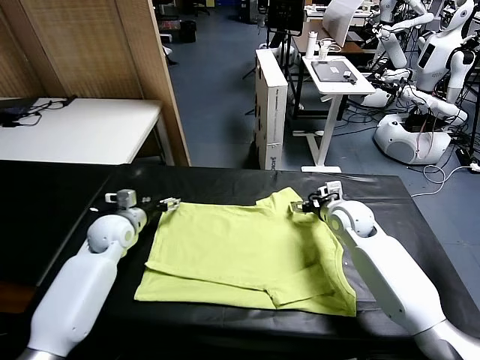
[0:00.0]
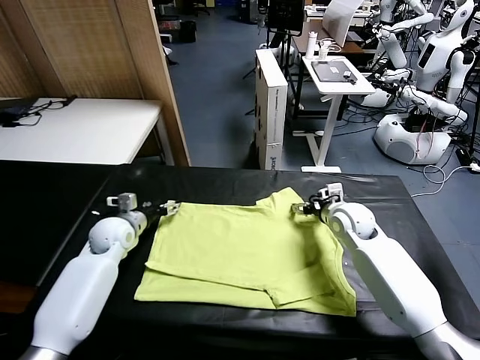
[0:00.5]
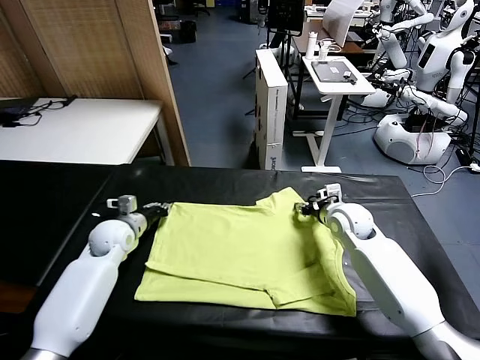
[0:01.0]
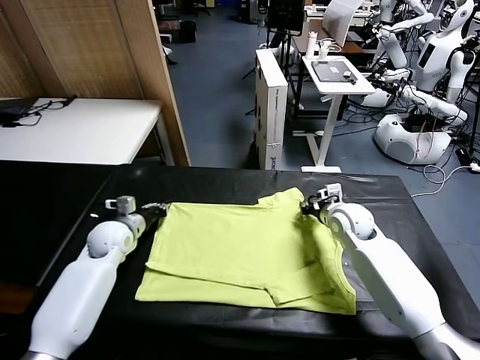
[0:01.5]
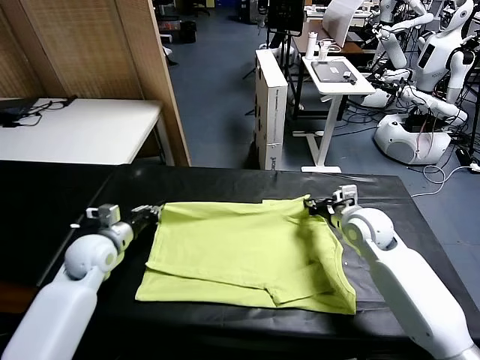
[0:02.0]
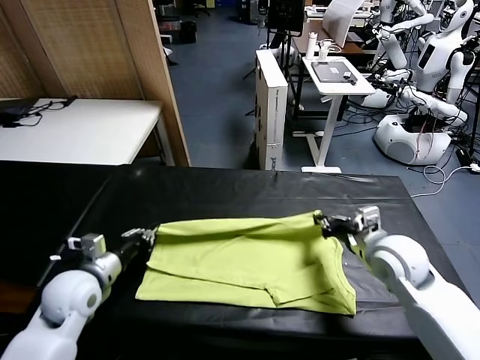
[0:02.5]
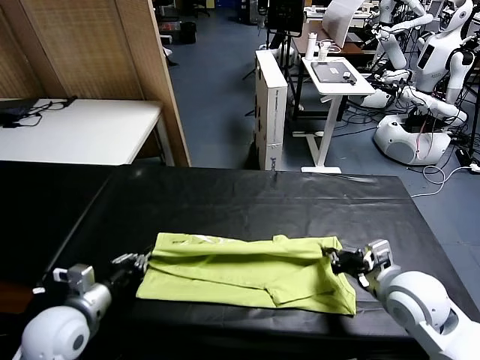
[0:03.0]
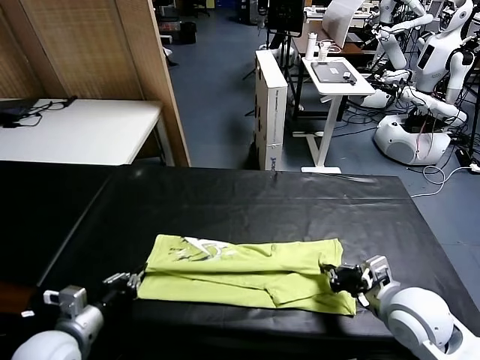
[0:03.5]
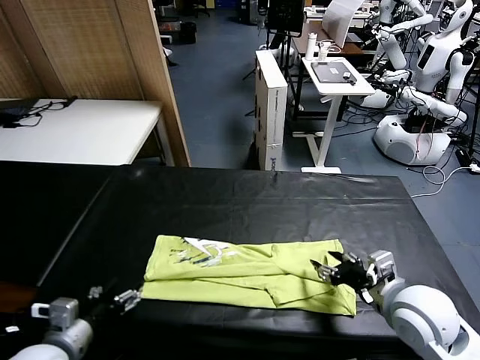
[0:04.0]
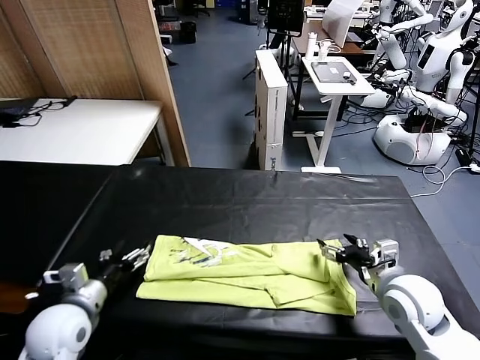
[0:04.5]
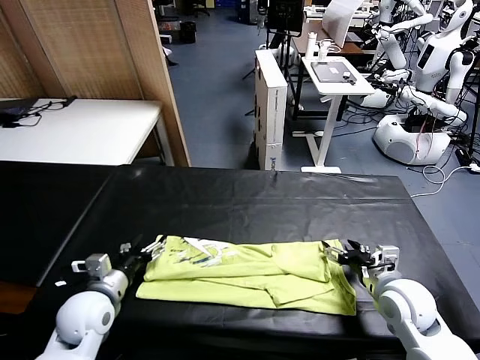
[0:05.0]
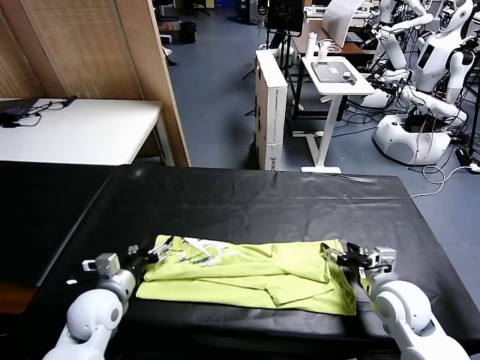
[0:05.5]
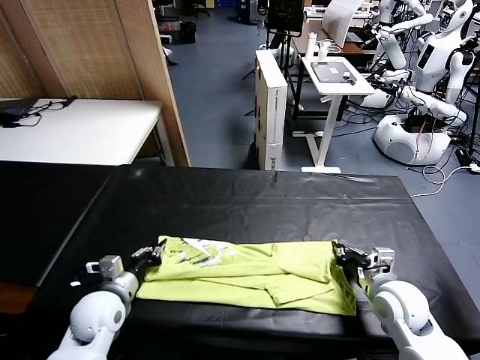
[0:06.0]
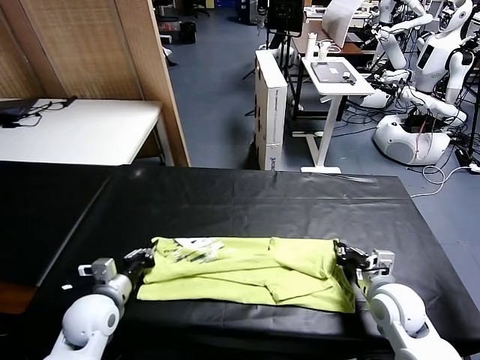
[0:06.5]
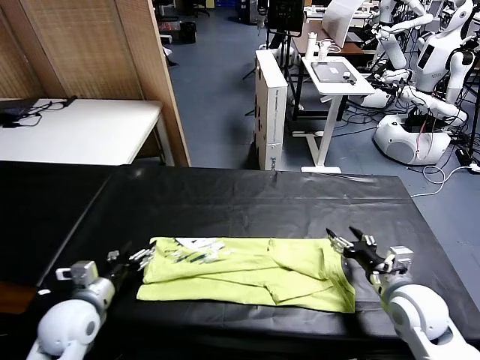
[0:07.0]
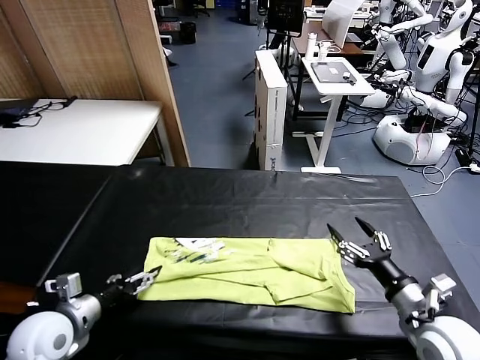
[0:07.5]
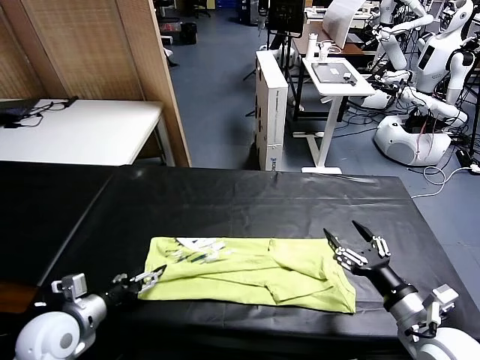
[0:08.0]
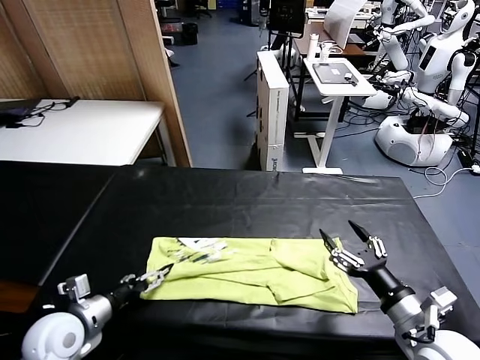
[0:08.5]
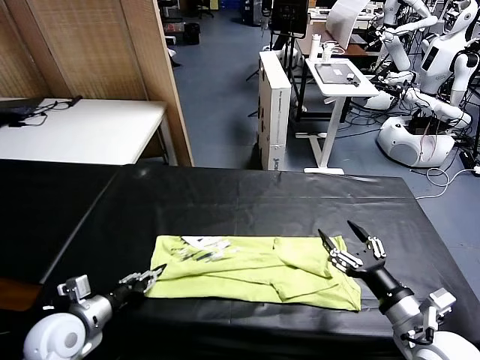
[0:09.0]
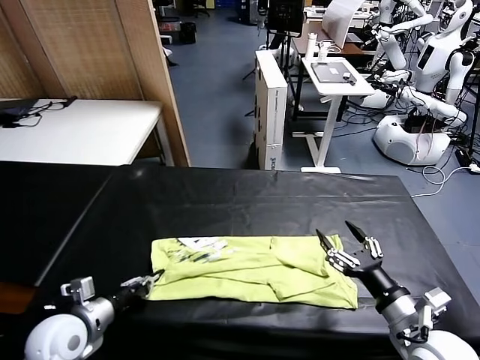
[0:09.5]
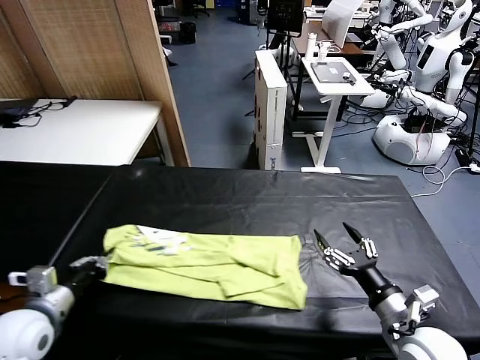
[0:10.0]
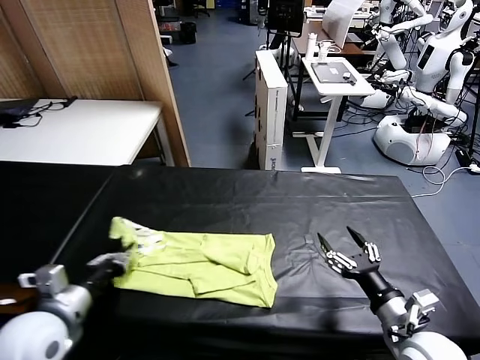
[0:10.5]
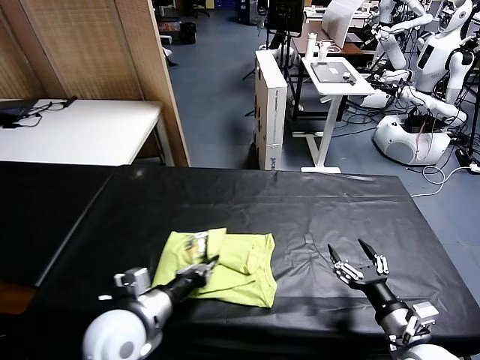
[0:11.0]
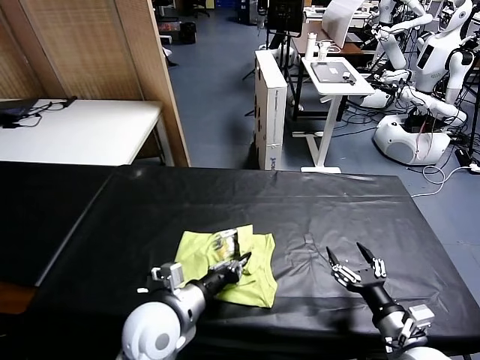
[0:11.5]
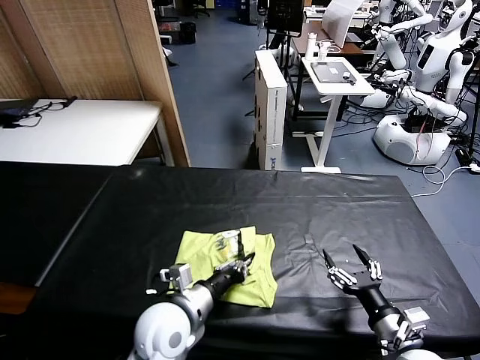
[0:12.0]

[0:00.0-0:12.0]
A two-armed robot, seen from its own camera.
Task of the whole recording: fold and organize the clothes.
Step, 0:01.5 to 0:04.0: use both grippers to drag the upper edge of the fabric backward and fold it over the lower edge.
Step, 0:04.5 to 0:09.0: use the left gripper to clamp the left edge of the fabric.
0:00.0 to 0:02.0: The grippers both shift backward by approximately 10 cm. The left gripper closes, while the right gripper closes up.
0:02.0 to 0:04.0: The grippers both shift backward by some 20 cm. The right gripper opens its fingers; the left gripper opens up.
0:04.0 to 0:06.0: The right gripper is displaced downward by some 10 cm, and closes. Meanwhile the left gripper shifts some 15 cm forward and downward, and closes.
0:06.0 to 0:08.0: The right gripper travels backward and upward by some 10 cm, and opens its fingers. The left gripper goes about 10 cm backward and to the left, and opens up.
0:08.0 to 0:10.0: The left gripper shifts some 5 cm upward, and closes up.
0:10.0 to 0:12.0: The left gripper heads to the right, covering roughly 25 cm.

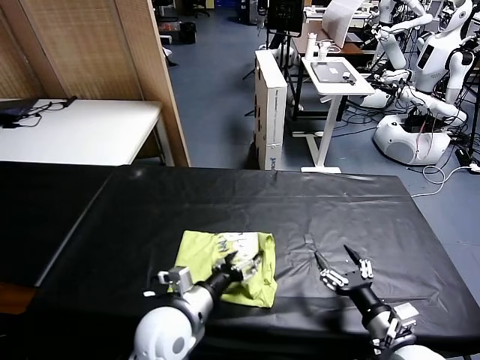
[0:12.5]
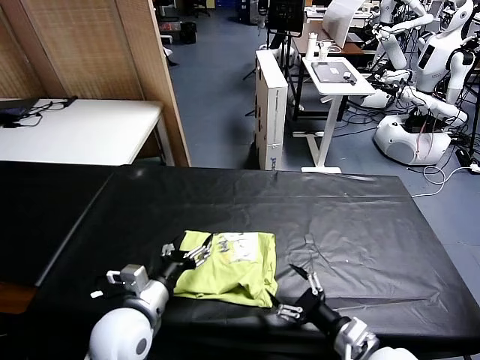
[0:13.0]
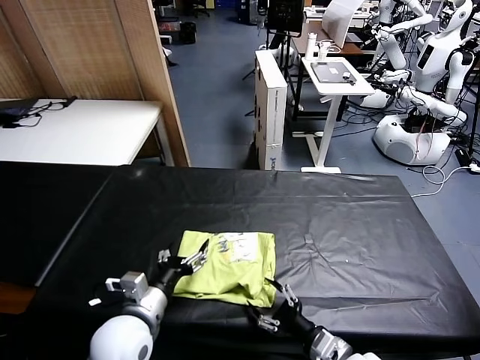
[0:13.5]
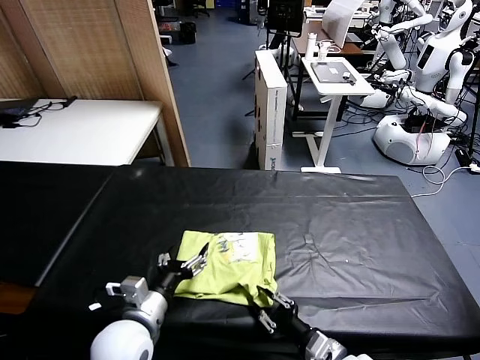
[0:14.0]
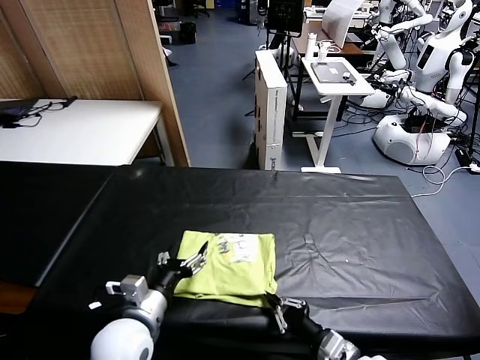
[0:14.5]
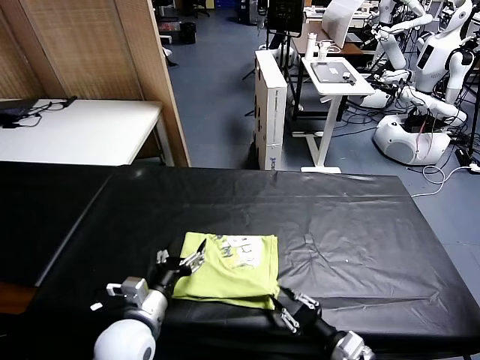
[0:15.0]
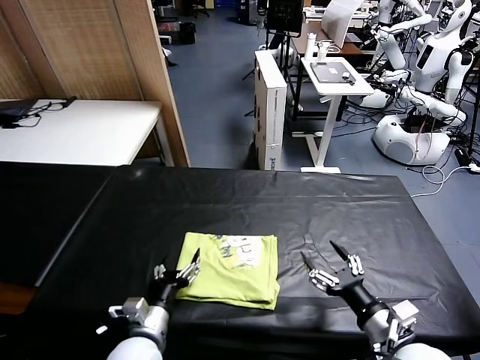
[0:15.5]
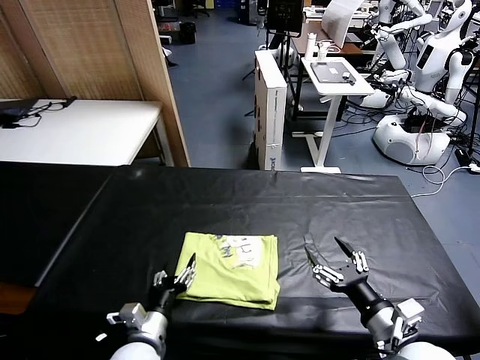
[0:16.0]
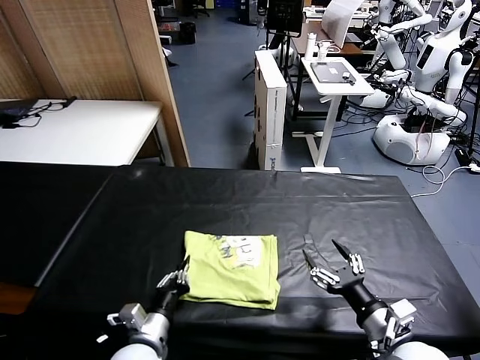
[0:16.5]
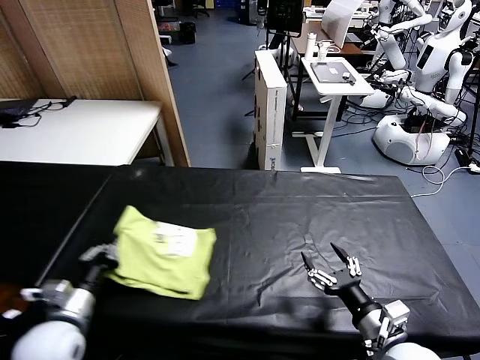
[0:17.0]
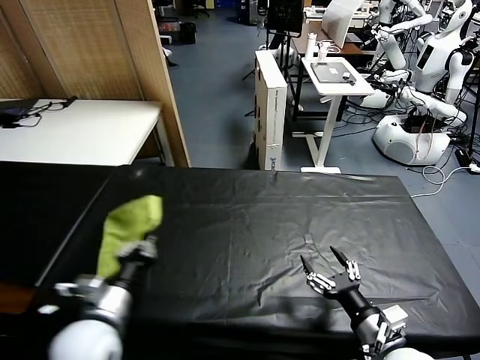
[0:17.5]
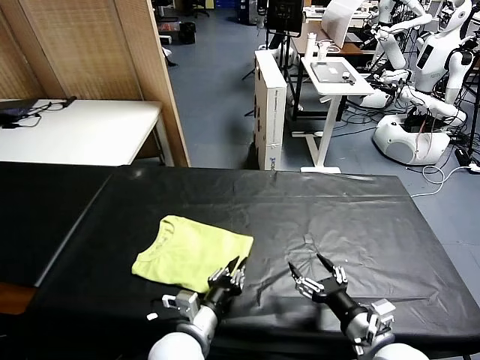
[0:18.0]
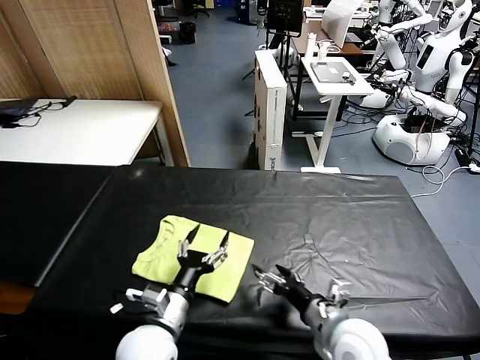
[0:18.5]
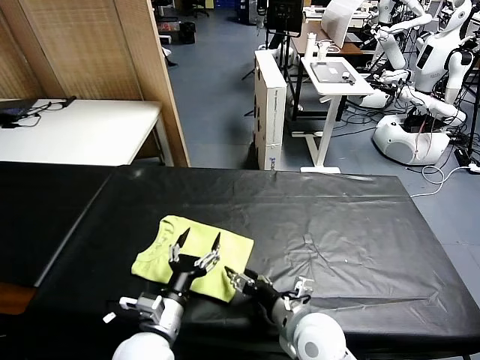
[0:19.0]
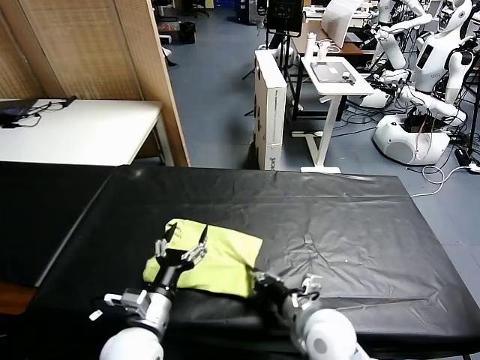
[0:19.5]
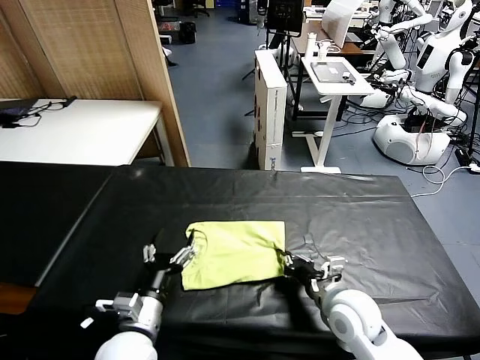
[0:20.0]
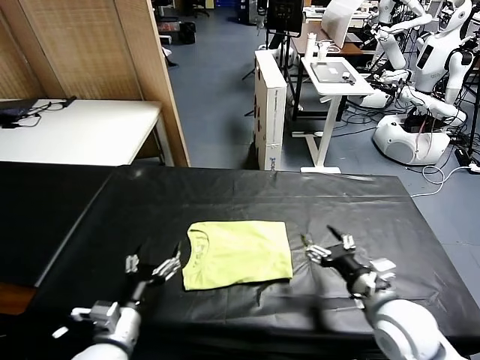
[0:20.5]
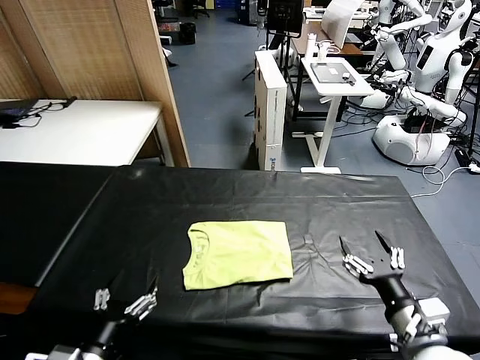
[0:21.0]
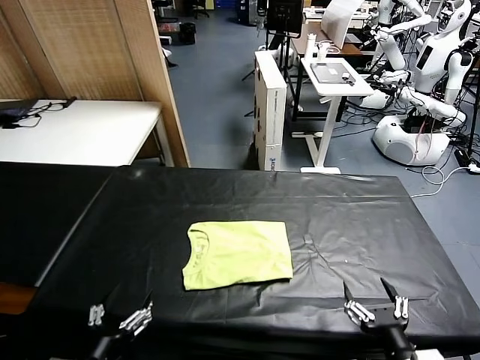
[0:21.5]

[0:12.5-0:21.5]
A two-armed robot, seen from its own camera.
Task of the whole recording: fold and organize the clothes.
Step, 0:12.5 to 0:18.0: Flip the folded clothes over with left gripper.
Step, 0:18.5 to 0:20.0: Drag the clothes to the center of the table.
0:12.5 to 0:14.5: Both grippers move to the left, about 5 cm. The right gripper closes.
0:14.5 to 0:17.0: The left gripper is displaced to the left by roughly 15 cm, and closes; the right gripper moves approximately 5 cm, and opens.
0:17.0 to 0:19.5: The right gripper is displaced to the left and forward by about 15 cm, and closes up, while the left gripper travels to the right by roughly 15 cm, and opens.
0:19.5 to 0:21.5: The left gripper goes about 15 cm backward and to the left, while the right gripper heads backward and to the right, covering roughly 20 cm, and opens up.

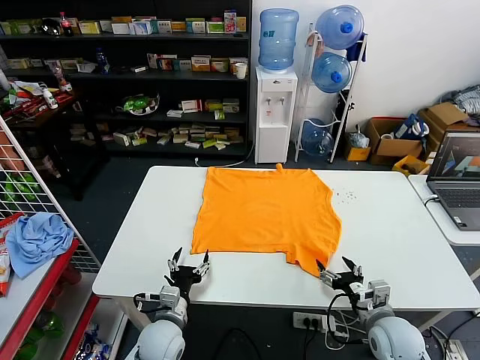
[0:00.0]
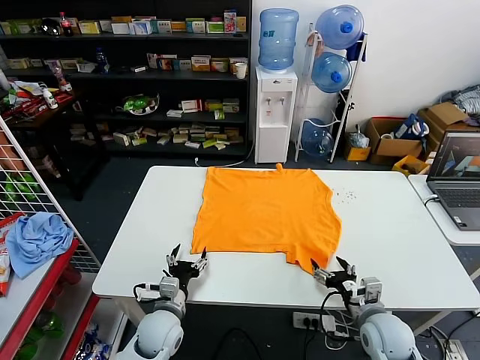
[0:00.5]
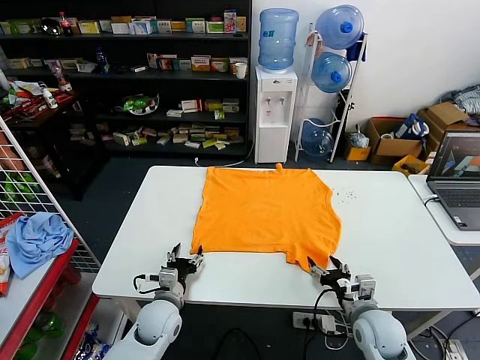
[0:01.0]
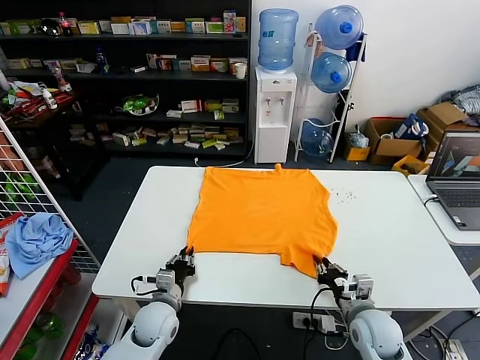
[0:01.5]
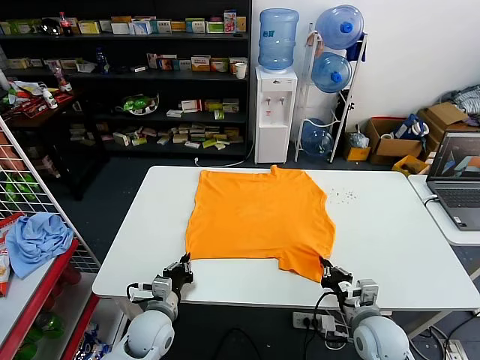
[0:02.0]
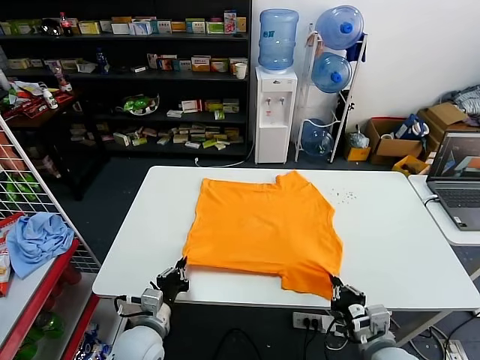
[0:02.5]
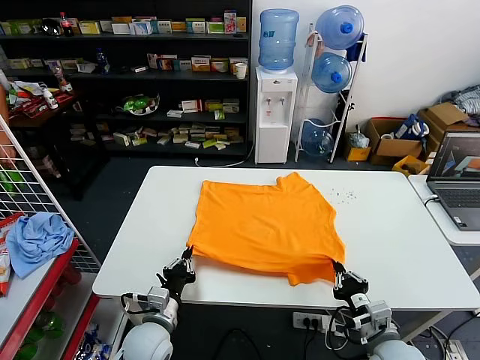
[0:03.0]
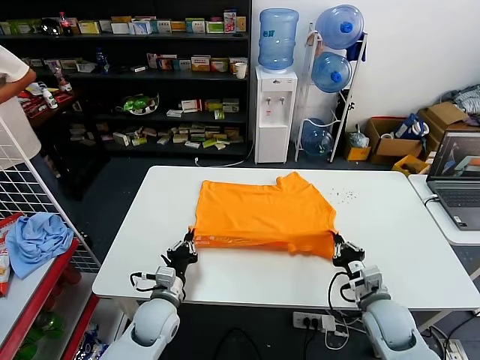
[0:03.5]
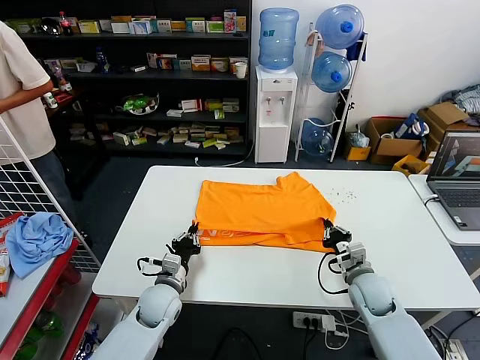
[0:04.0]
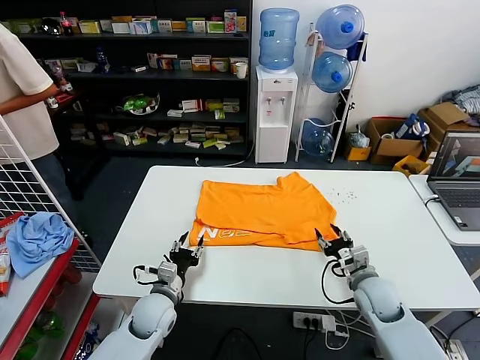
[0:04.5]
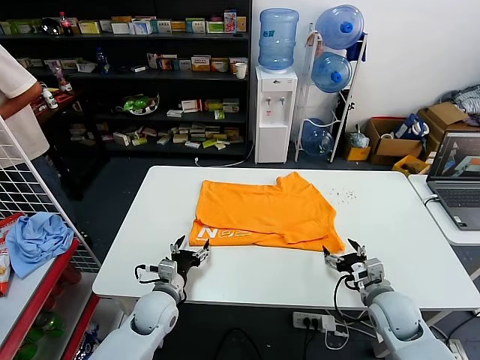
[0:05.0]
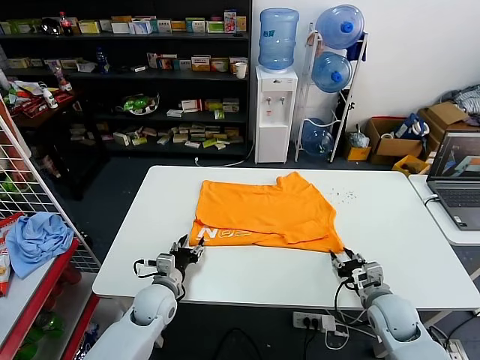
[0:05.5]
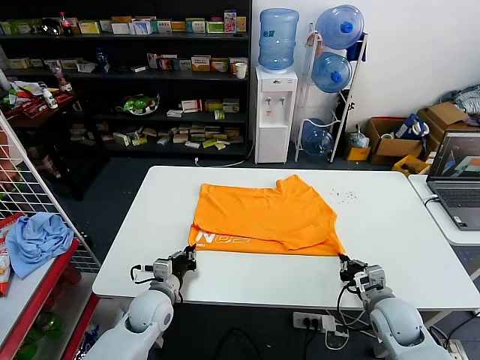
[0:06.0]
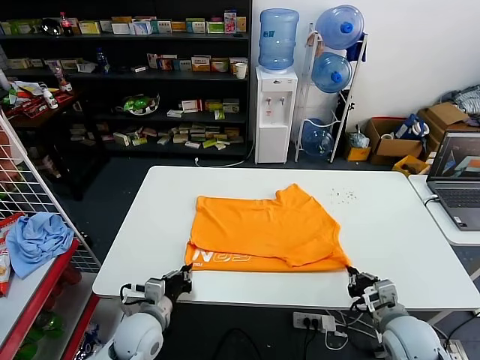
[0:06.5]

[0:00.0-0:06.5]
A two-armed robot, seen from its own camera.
Task of the whole recording: fold and organize the clothes.
Step, 0:00.0 to 0:01.5: use both grippers simultaneously to clamp the lower edge of the clothing fabric.
Step, 0:02.0 to 0:04.0: use both grippers to drag the lower edge of the fabric forward and fold it over the upper edge.
0:02.0 to 0:04.5: The right gripper travels forward by approximately 10 cm, and opens its fingers. Meanwhile the left gripper opens.
0:04.5 to 0:06.5: The left gripper shifts by about 5 cm, and closes up; the right gripper travels backward by roughly 10 cm, and closes its fingers.
